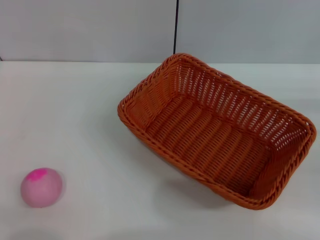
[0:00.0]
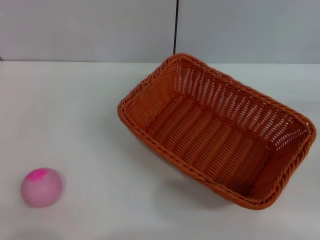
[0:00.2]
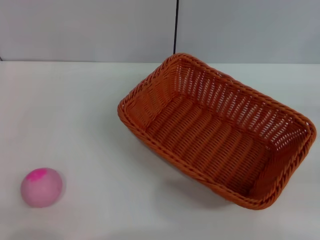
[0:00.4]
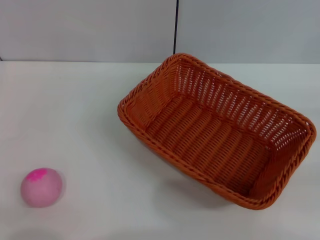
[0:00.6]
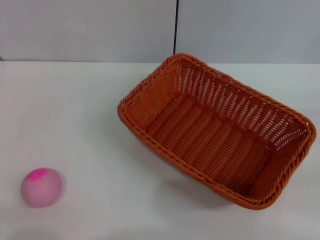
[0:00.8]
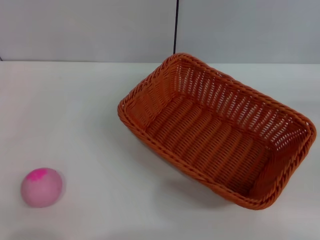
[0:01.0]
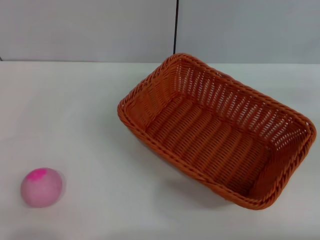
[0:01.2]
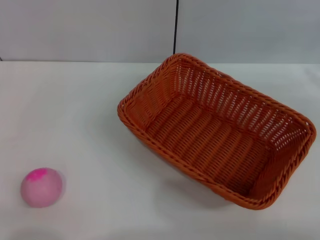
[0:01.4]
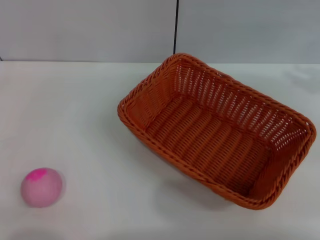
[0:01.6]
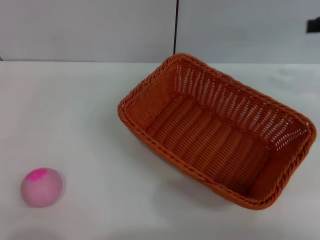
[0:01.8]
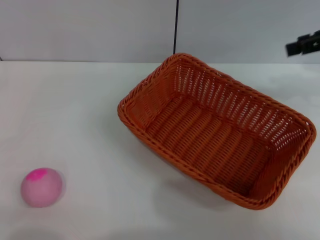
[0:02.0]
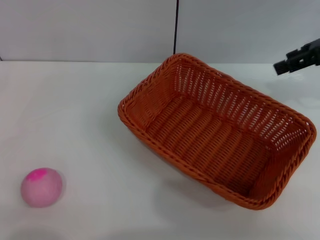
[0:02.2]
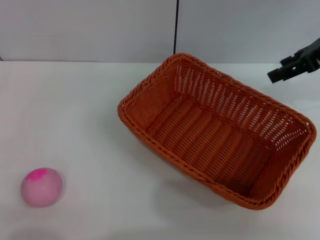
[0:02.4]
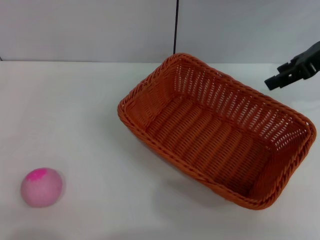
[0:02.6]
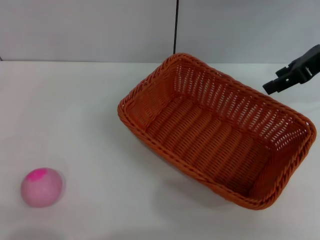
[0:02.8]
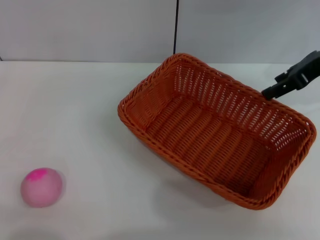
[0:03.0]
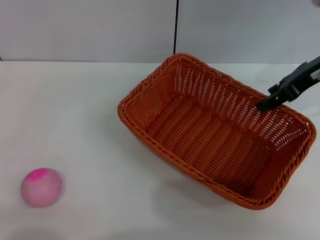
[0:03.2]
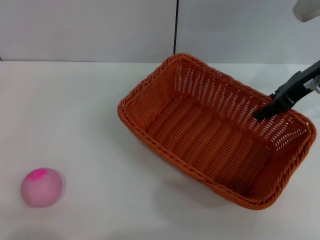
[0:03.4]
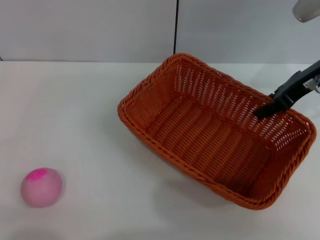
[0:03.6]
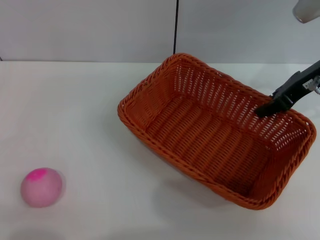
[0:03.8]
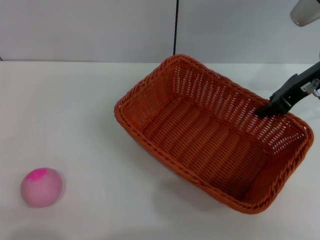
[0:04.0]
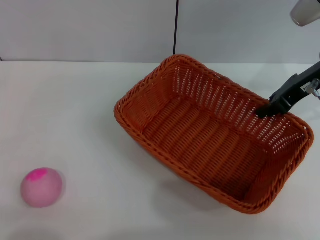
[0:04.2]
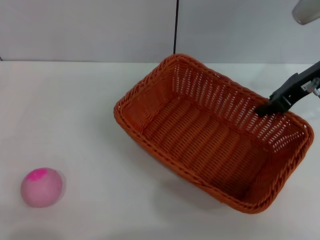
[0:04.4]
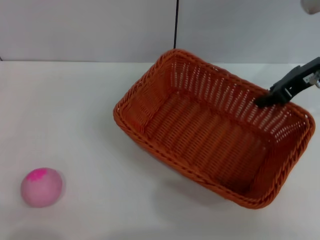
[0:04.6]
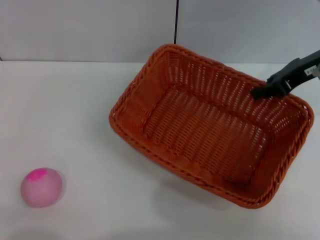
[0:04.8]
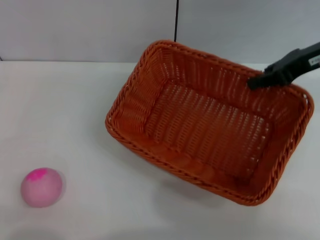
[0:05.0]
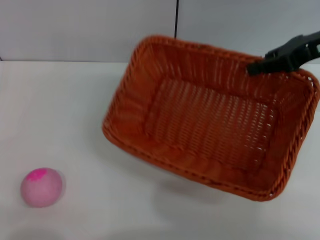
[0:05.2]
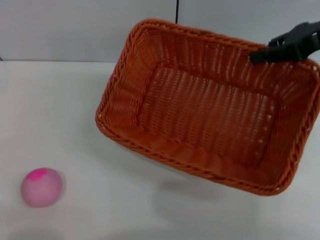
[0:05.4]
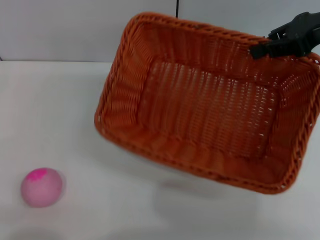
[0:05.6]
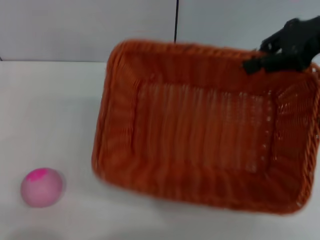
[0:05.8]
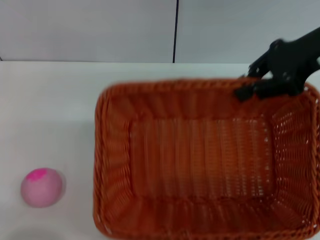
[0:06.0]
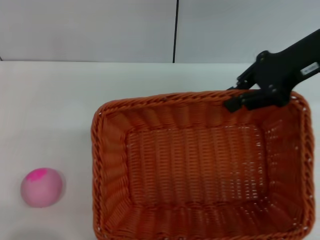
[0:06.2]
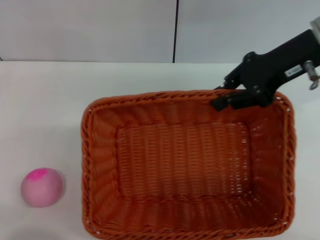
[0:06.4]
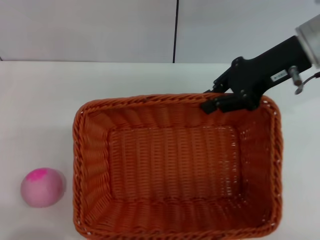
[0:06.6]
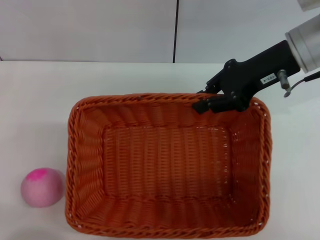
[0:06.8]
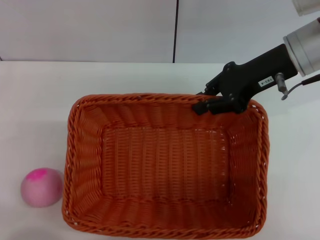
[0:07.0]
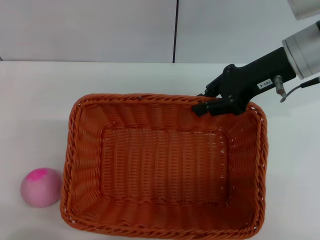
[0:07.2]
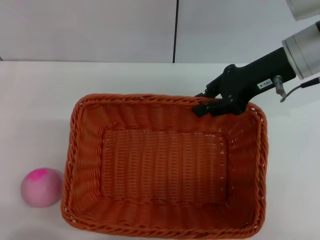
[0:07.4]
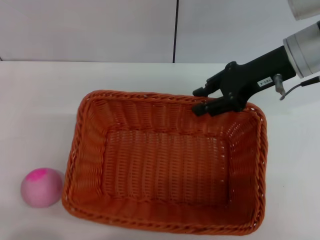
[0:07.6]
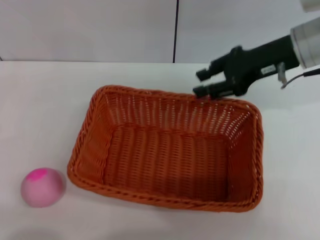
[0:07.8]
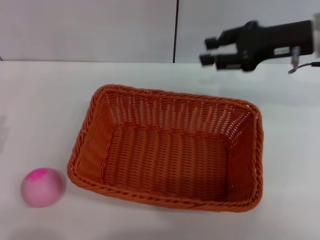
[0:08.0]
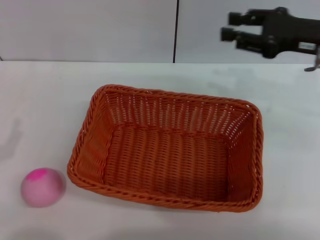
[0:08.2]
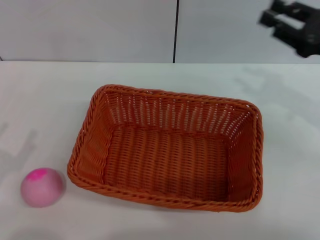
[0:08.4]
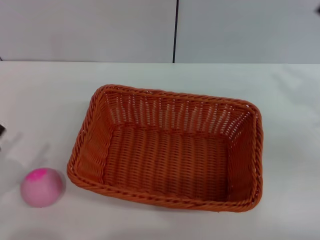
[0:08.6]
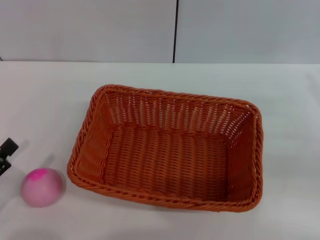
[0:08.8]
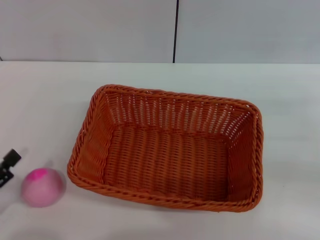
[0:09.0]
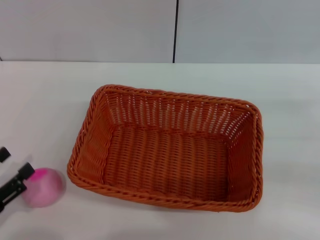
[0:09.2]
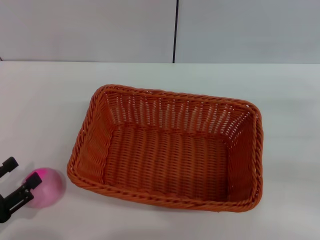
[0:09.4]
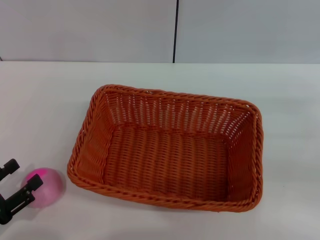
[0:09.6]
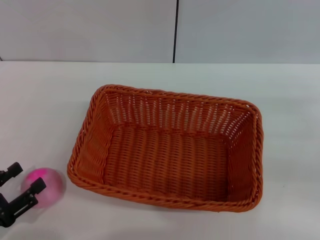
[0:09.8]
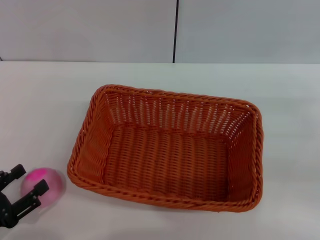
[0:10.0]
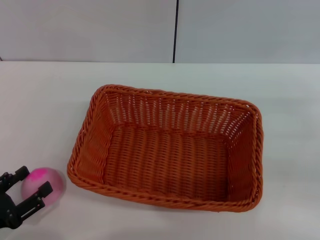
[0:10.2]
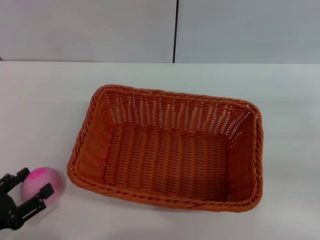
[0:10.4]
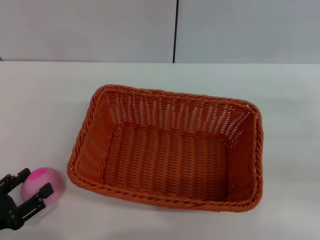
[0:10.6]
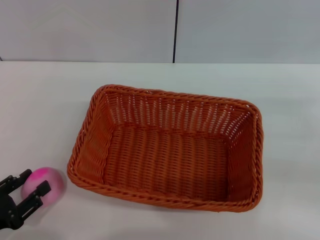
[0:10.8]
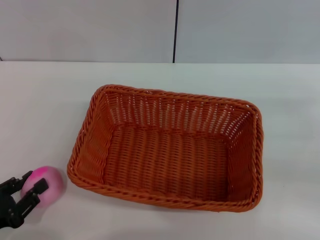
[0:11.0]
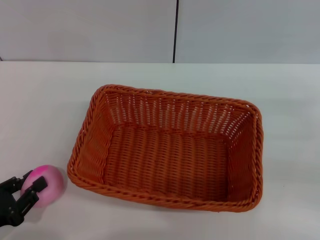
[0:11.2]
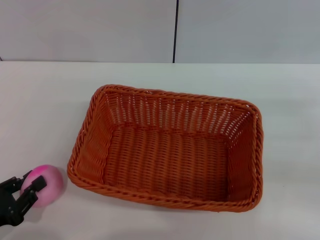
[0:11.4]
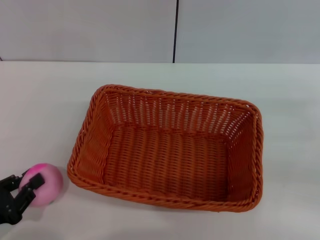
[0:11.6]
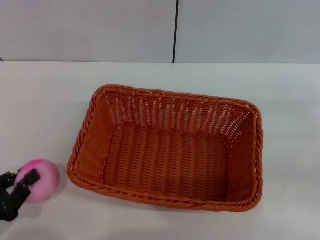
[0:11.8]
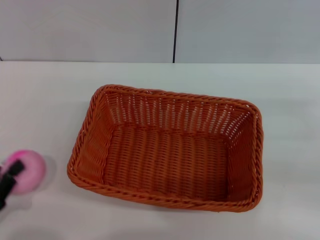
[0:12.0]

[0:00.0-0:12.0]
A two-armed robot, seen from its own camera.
Step, 0:00.0 to 0:05.2: Pick up the light basket with the right gripper.
Step, 0:05.6 to 0:07.6: Place the light basket in the center of view with the right gripper.
0:01.6 to 0:03.0: The right gripper moves to the left and forward, roughly 15 cm.
0:03.0 to 0:04.4: The right gripper closes its fingers.
0:04.4 to 0:06.0: The right gripper moves upward, roughly 5 cm.
0:06.0 to 0:07.6: The right gripper shifts about 5 cm downward.
0:07.6 to 0:09.0: The right gripper heads to the right, backward and downward, covering about 25 cm, and opens its fingers.
0:09.0 to 0:10.4: There are only small adjustments of the grippers.
0:10.4 to 0:12.0: The left gripper closes.

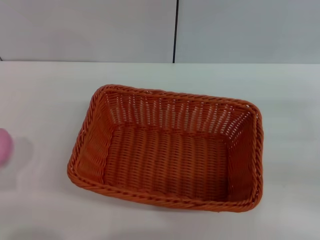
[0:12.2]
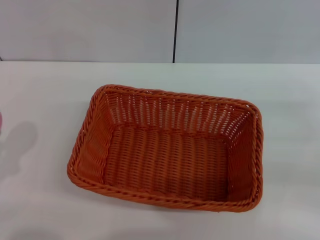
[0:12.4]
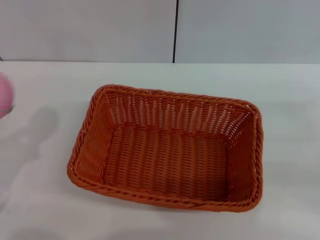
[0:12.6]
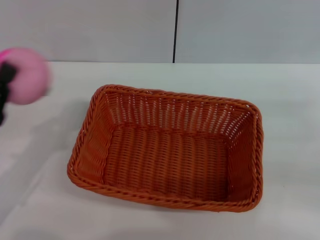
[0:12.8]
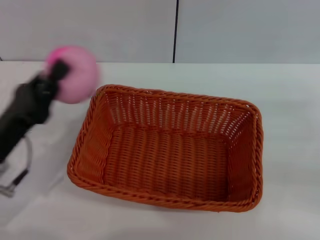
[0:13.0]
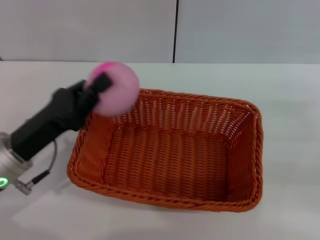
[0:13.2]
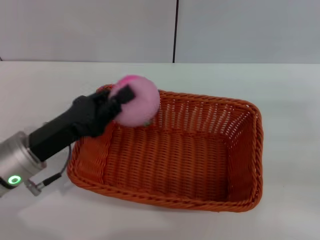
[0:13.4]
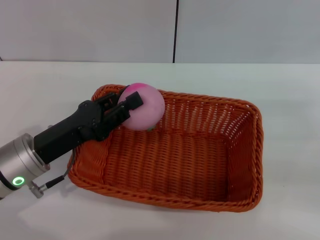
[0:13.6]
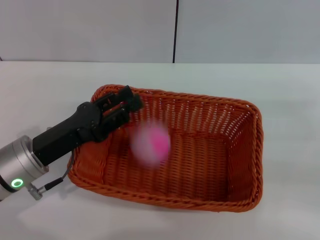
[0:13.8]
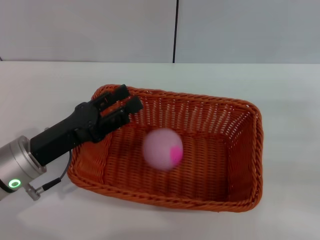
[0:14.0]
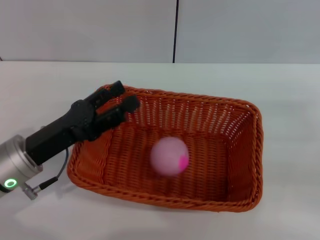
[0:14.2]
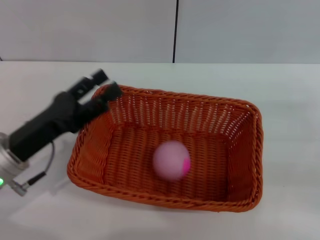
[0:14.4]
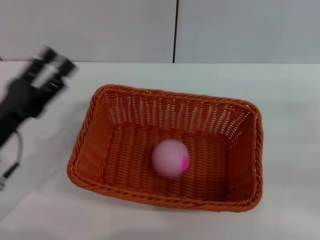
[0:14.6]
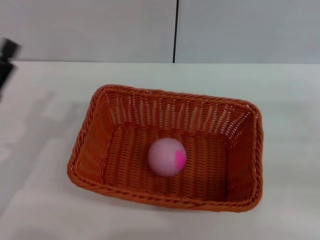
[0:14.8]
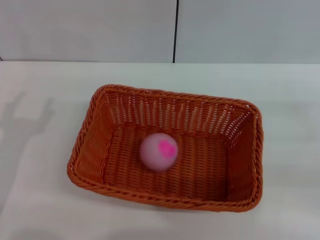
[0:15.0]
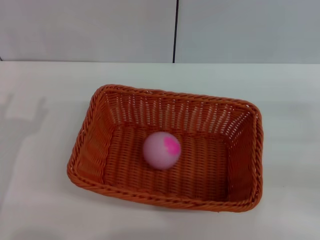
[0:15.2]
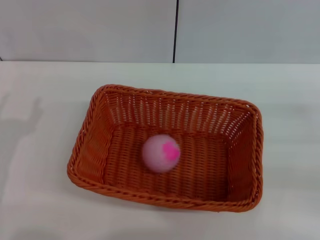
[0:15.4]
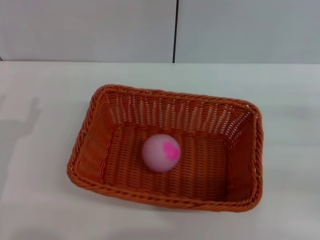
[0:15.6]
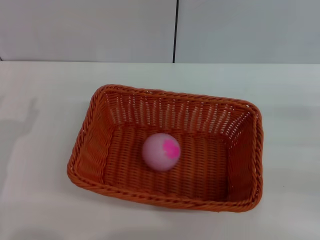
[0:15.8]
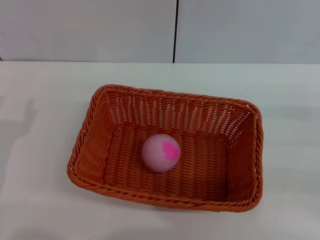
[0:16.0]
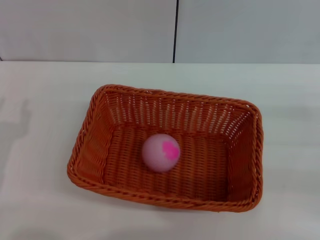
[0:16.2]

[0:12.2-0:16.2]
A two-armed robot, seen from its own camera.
Step, 0:13.0 to 0:14.2: Place the peach into the basket with the left gripper.
0:12.2 to 0:13.6: The left gripper travels to the right and forward by about 20 cm.
0:13.6 to 0:14.8: The left gripper heads to the left, covering some 5 cm, and opens its fingers.
